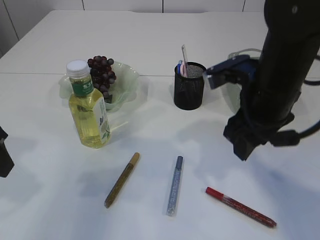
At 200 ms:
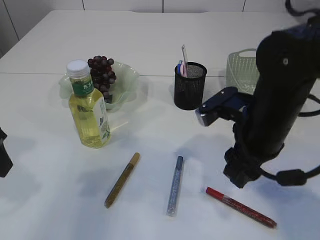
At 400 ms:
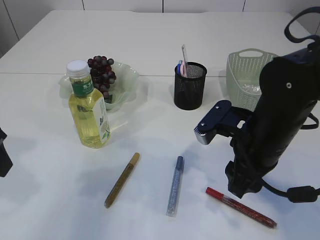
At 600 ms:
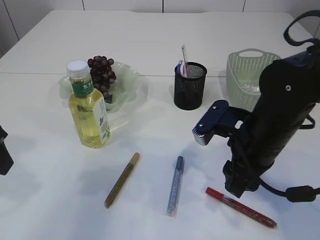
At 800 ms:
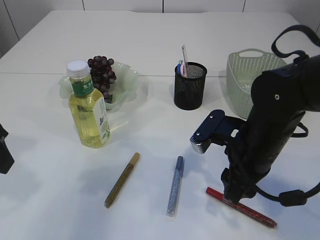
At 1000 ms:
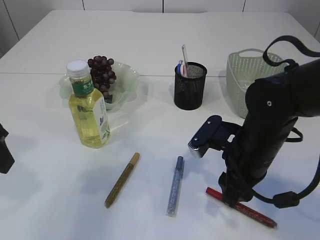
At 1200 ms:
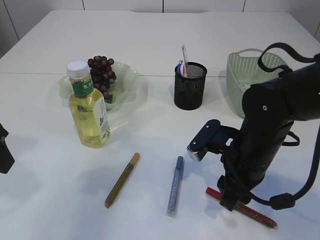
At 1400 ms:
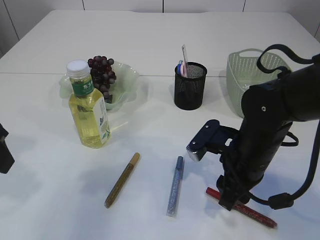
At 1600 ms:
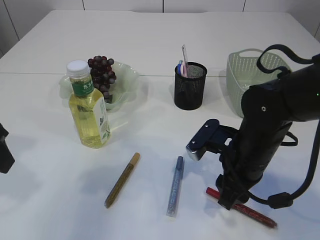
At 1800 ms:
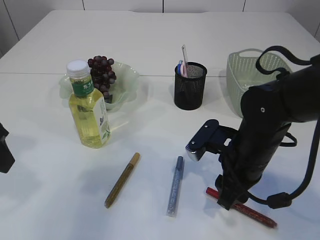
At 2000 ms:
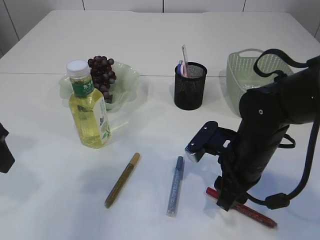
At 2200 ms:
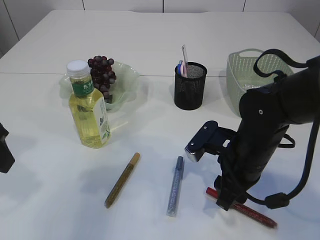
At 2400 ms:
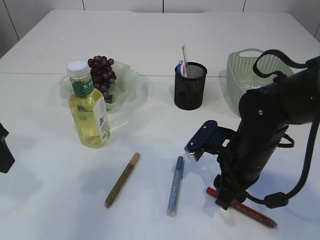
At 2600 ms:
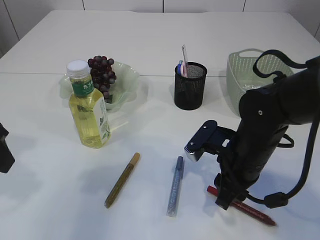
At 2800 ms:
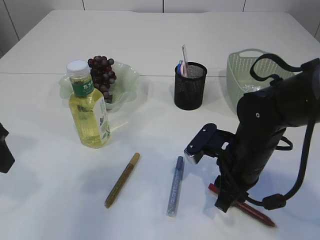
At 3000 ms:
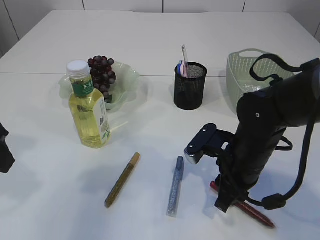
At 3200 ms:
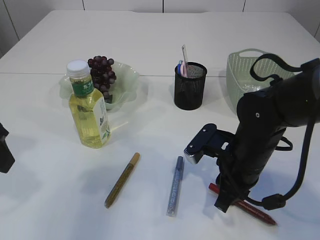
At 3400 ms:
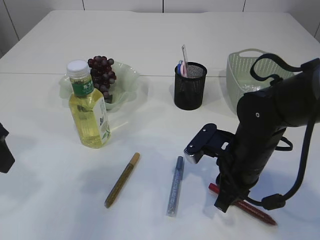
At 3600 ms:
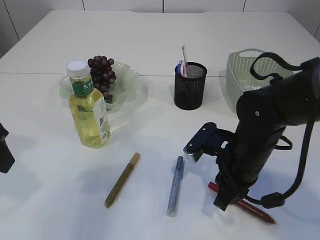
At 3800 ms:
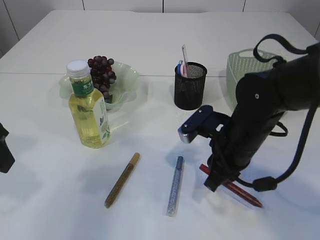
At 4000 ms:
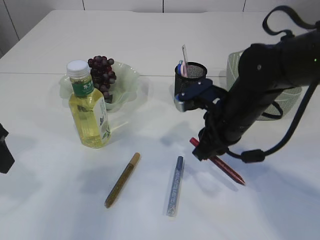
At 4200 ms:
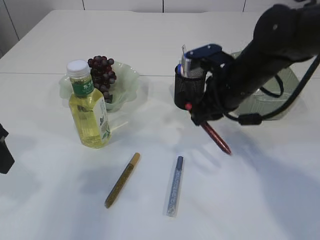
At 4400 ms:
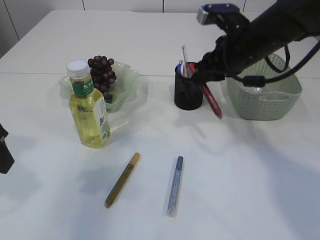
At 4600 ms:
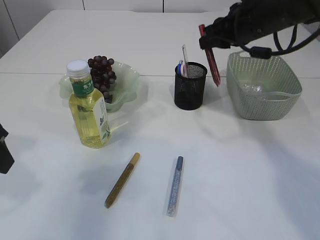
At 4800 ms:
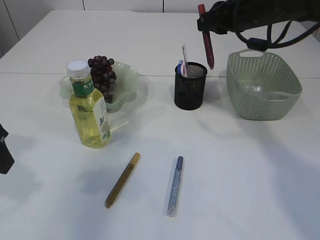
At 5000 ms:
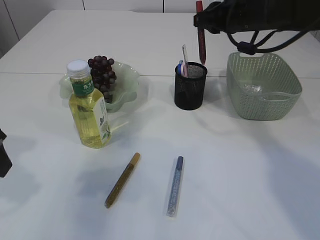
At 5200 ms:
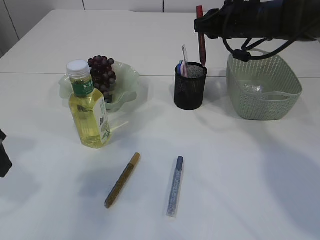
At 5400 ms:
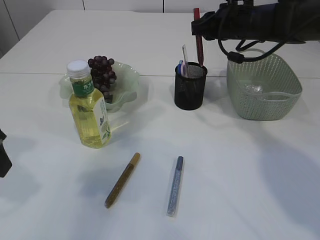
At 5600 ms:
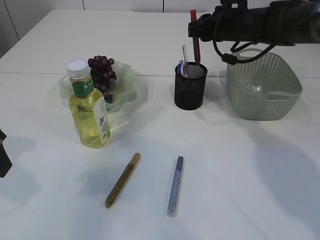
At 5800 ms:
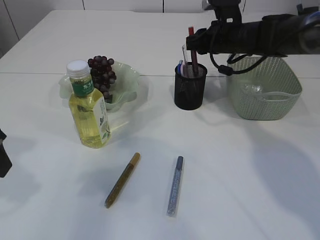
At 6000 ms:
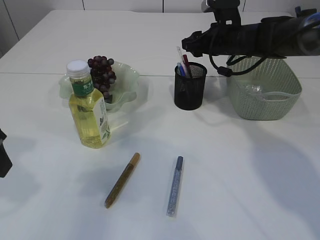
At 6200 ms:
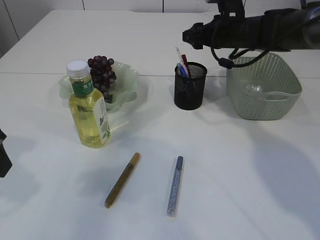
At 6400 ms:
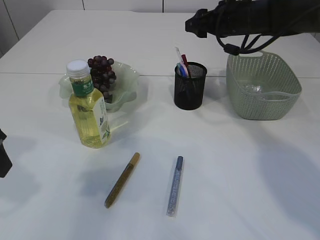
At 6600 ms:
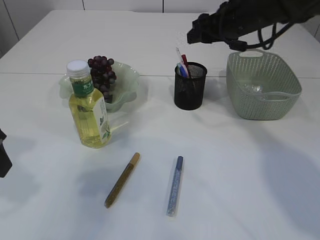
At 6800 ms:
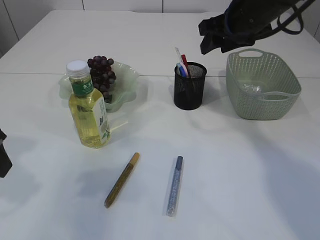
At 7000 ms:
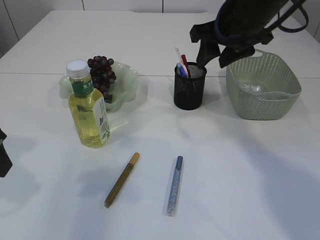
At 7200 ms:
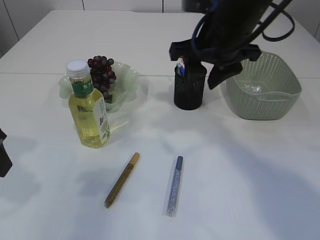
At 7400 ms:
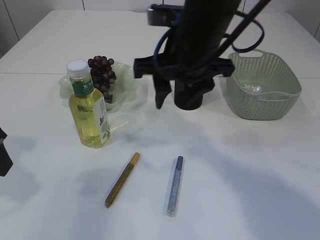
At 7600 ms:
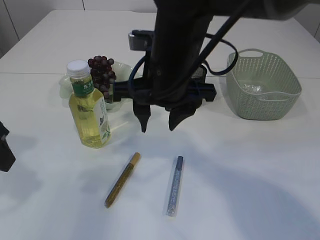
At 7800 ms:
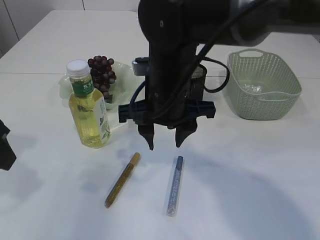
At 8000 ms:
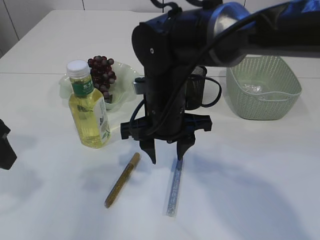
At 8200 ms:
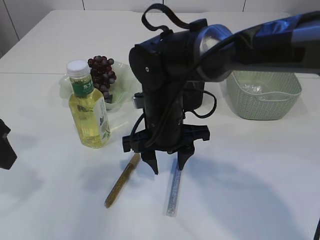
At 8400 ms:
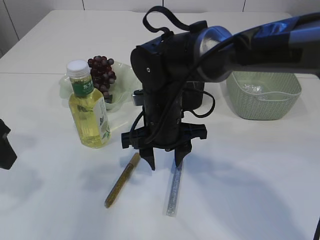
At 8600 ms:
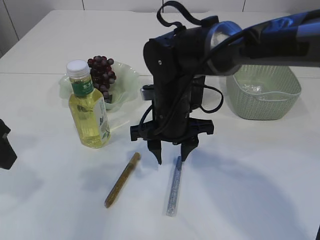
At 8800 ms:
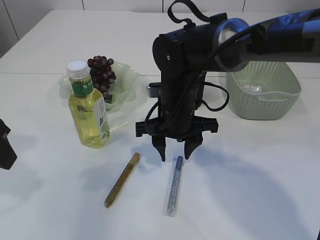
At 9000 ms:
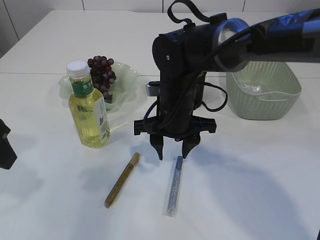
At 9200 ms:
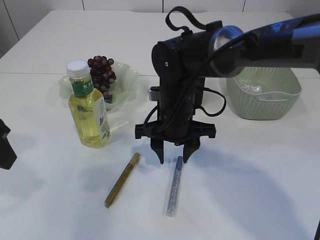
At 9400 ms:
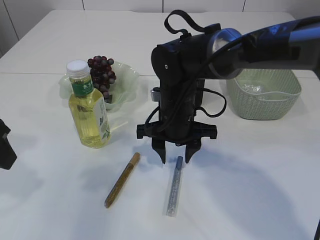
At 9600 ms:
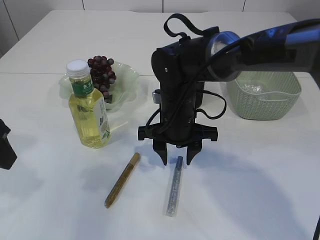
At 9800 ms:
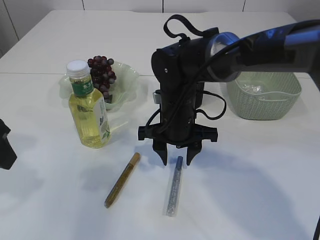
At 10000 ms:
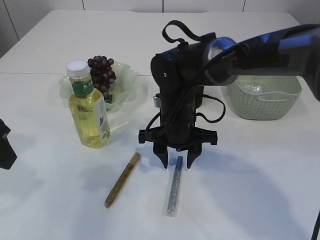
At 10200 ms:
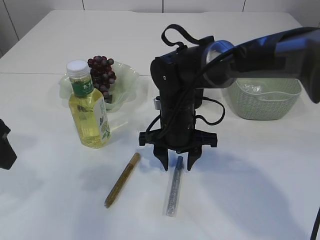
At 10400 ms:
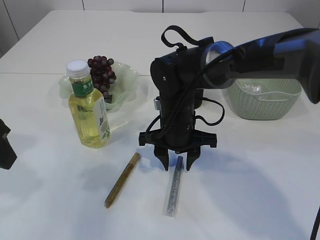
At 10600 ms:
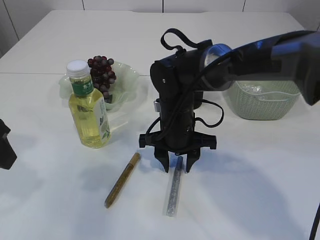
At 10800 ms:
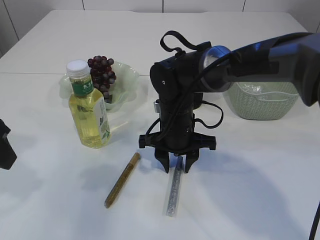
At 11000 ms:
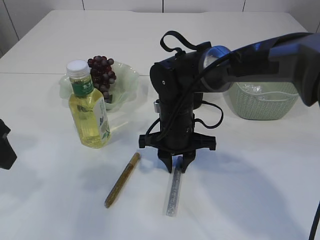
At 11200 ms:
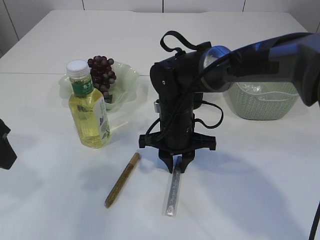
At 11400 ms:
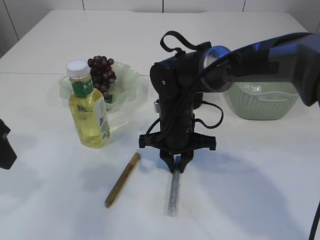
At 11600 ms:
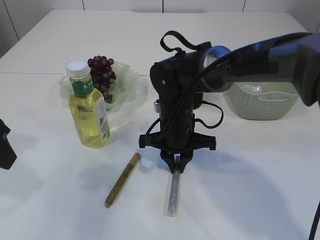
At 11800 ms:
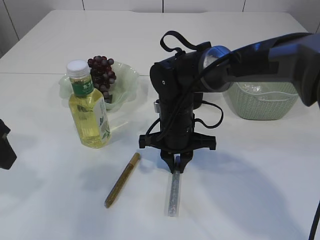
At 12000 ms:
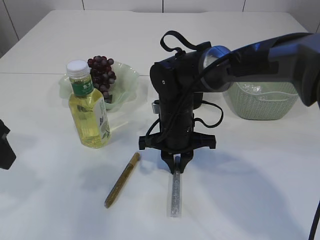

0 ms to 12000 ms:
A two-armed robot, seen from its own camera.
Step, 0 ms to 4000 ms: pick up the red glue.
Step, 4200 ms to 6400 ms: place the red glue into the pen holder.
0 ms to 1600 ms: The right gripper moves downward, roughly 10 cm.
1600 ms to 3000 ms: The grippers move only a little.
3000 ms to 4400 ms: The right gripper moves upward and forward, roughly 20 cm.
4400 ms to 6000 ms: The right gripper travels forward by approximately 10 cm, and opens its fingers.
6000 ms to 7600 ms: The right gripper shifts approximately 25 cm backward and to the left.
7600 ms to 9000 ms: The right gripper goes some 10 cm downward.
9000 ms to 10400 ms: The grippers move only a little.
10400 ms to 12000 ms: The right gripper closes its fingers.

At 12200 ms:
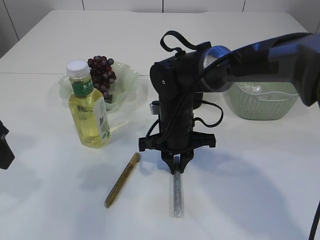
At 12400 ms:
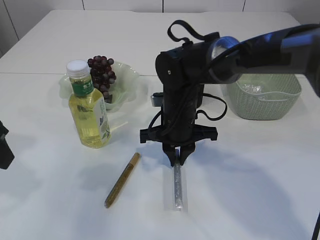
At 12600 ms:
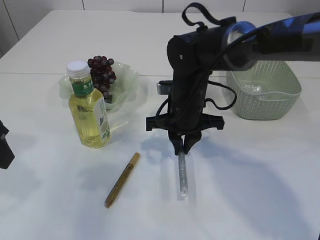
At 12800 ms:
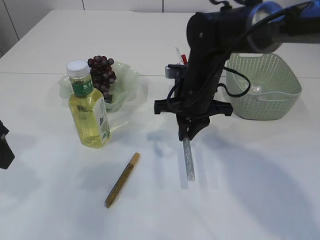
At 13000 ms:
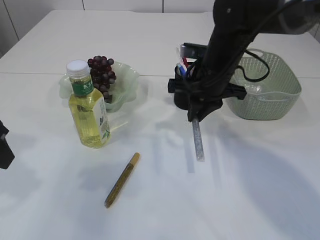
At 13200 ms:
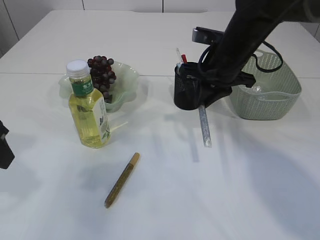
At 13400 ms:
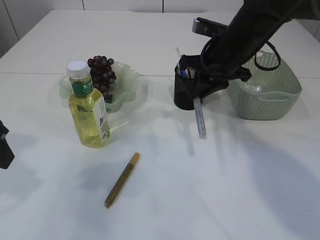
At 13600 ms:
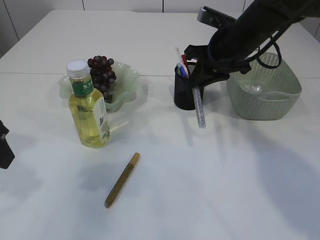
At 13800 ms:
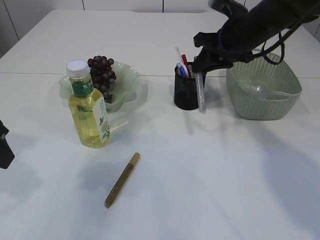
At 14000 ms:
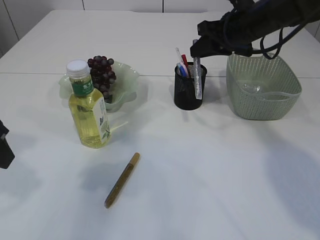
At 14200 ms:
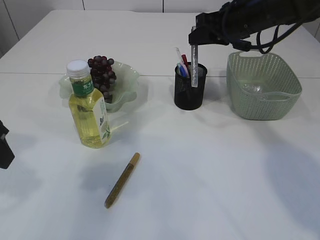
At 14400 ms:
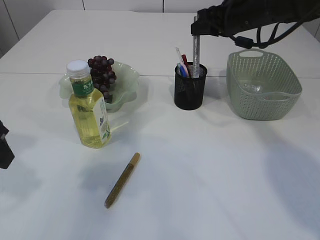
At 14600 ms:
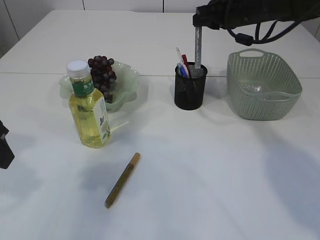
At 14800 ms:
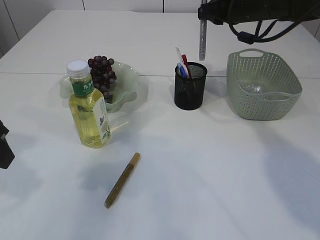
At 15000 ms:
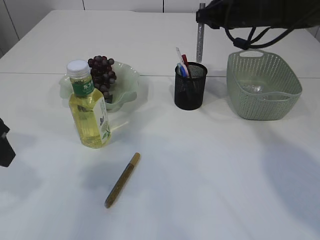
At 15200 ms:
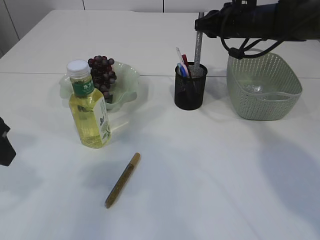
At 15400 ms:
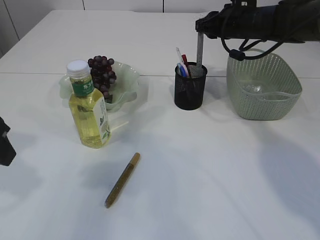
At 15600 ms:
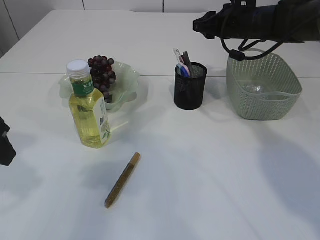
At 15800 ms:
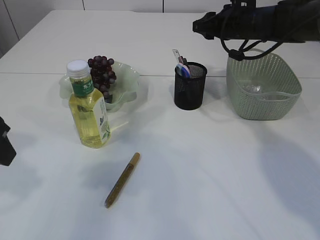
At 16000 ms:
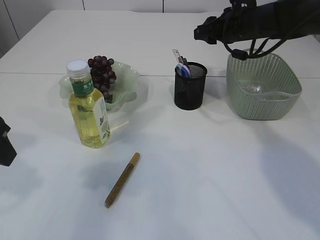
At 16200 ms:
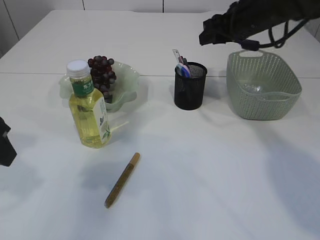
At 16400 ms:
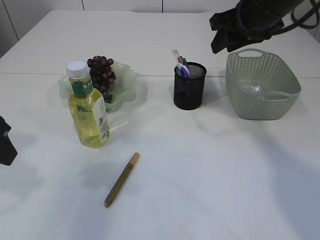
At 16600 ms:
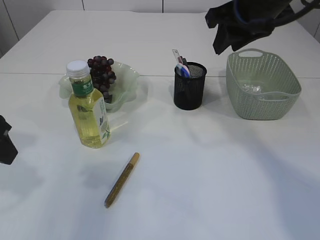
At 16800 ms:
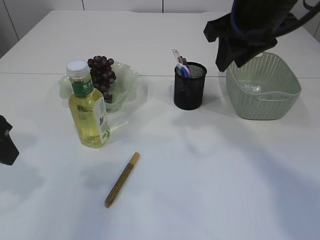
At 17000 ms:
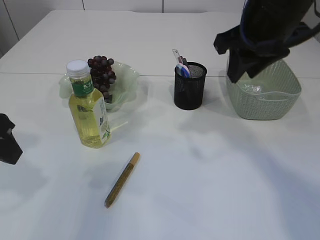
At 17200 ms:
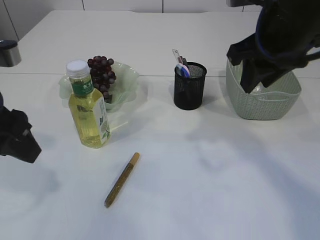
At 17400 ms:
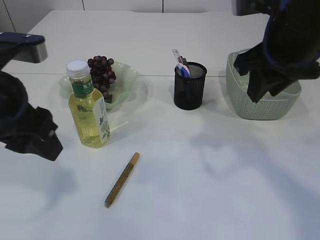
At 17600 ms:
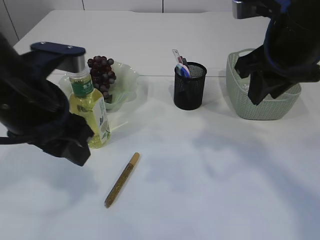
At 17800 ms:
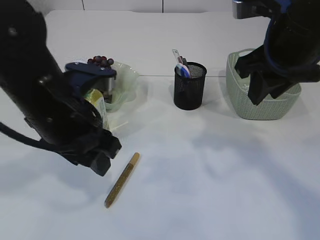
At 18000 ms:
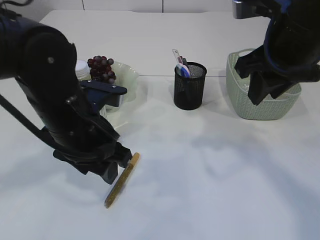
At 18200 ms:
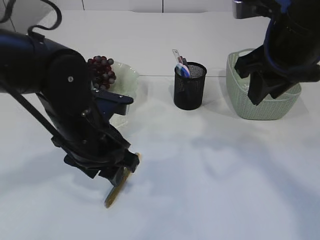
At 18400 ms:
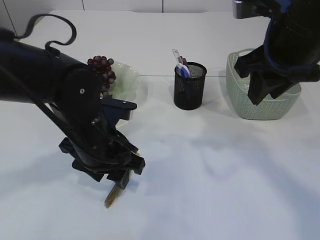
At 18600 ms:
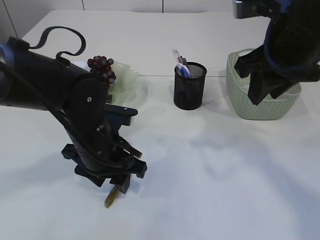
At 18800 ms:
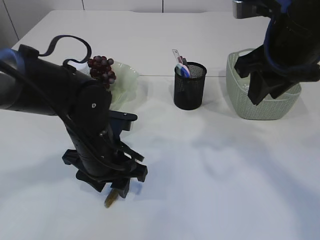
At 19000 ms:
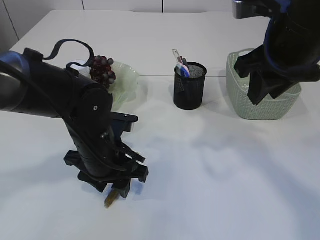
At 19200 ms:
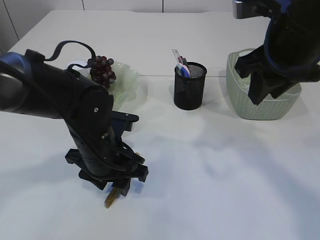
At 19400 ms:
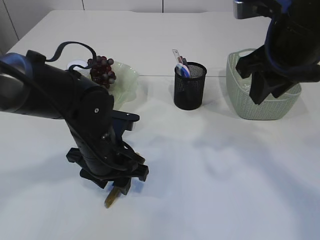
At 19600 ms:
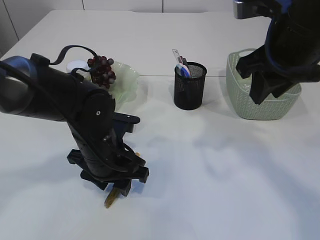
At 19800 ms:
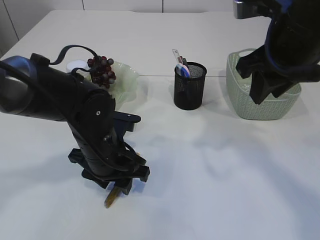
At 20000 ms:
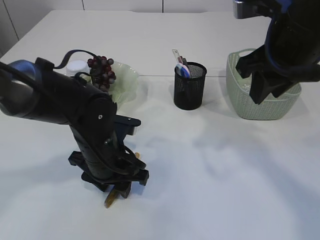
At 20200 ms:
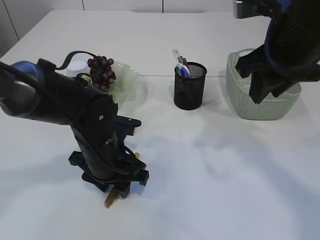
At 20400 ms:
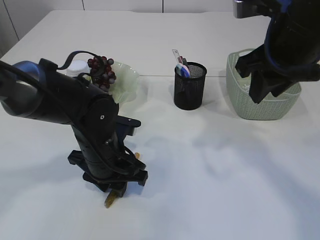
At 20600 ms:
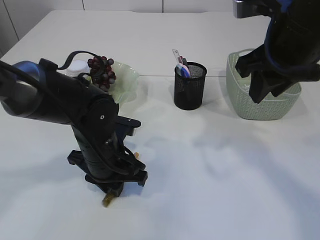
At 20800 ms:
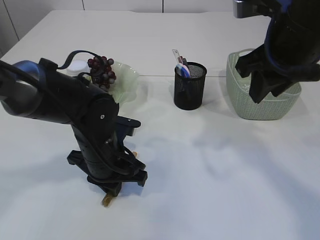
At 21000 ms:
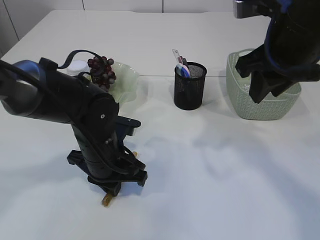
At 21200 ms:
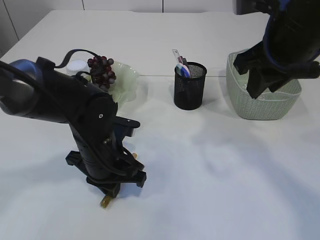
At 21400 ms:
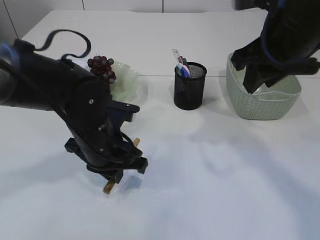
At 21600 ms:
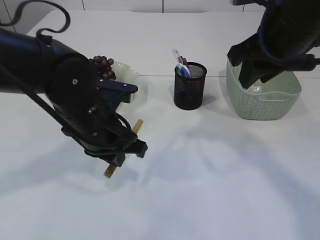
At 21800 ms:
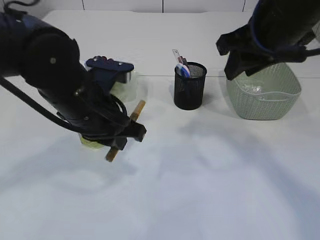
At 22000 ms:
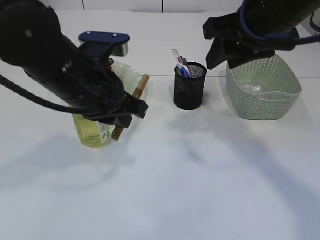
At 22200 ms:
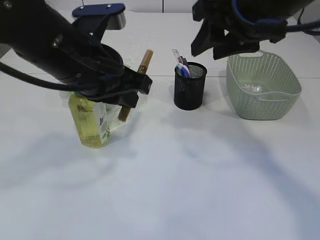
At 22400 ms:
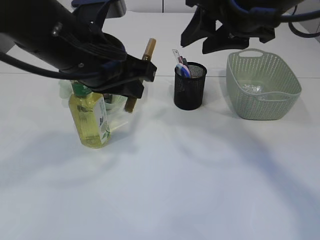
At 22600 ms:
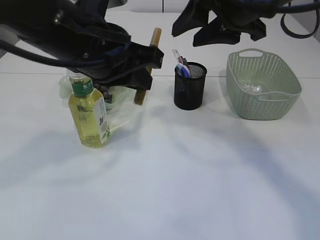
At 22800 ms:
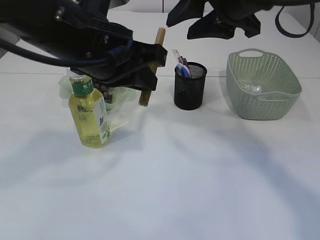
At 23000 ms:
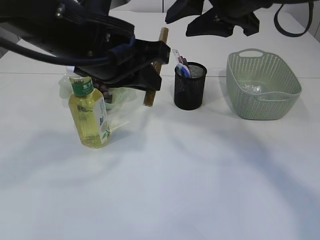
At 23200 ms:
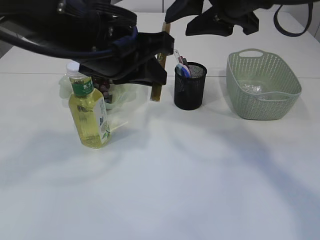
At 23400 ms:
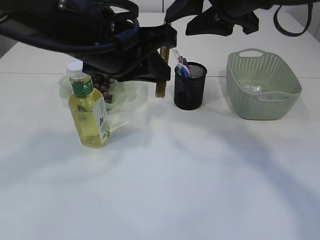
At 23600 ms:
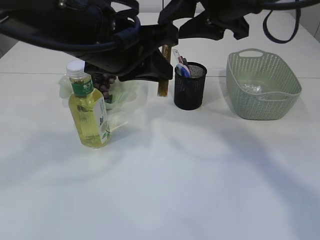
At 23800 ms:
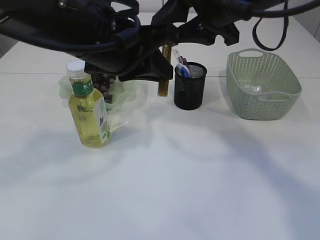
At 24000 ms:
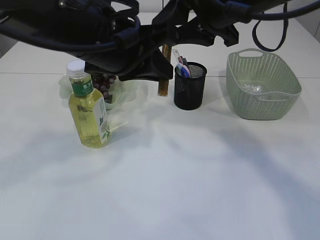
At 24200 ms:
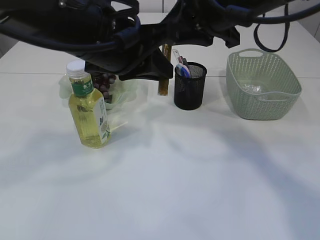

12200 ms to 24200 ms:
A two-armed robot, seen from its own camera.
Step, 12800 ms to 16000 ms: place the silver glue into the pen holder.
Step, 16200 ms to 21600 ms: pick up the yellow glue.
12200 ms to 13800 ms: The right gripper travels to the right, upward and forward by about 20 cm.
13800 ms to 15200 ms: The right gripper is displaced forward by some 5 cm.
15200 ms to 16600 ms: The right gripper moves backward and upward, about 15 cm.
16600 ms to 18200 ms: The right gripper heads backward, covering approximately 5 cm. The left gripper moves to the right and downward, approximately 15 cm.
18200 ms to 19800 ms: The left gripper goes some 5 cm downward.
19800 ms to 21200 ms: The left gripper closes.
21200 ms to 22600 ms: The left gripper moves upward, roughly 20 cm, while the right gripper ends up roughly 5 cm from where it was.
22600 ms to 24200 ms: There are only small adjustments of the grippers.
